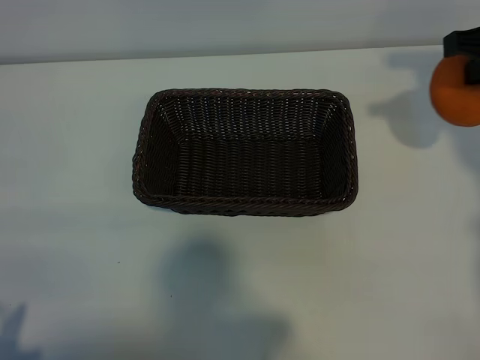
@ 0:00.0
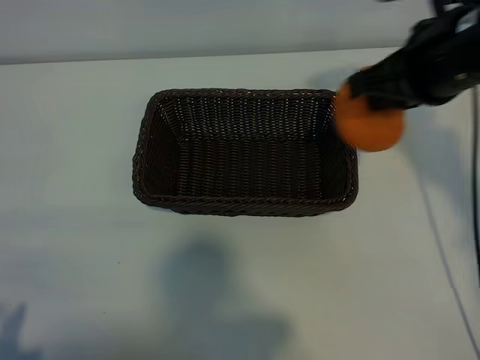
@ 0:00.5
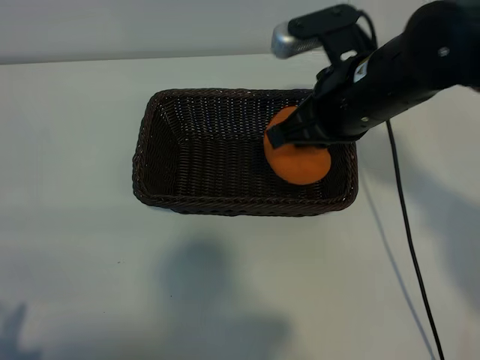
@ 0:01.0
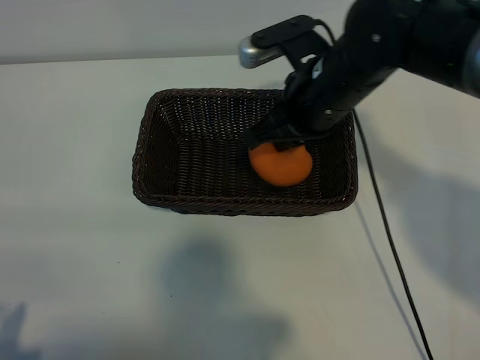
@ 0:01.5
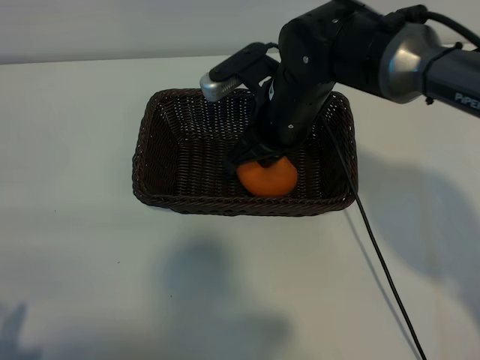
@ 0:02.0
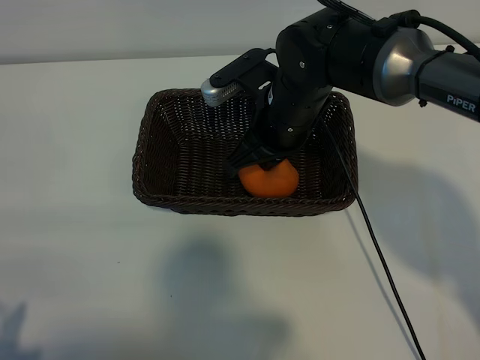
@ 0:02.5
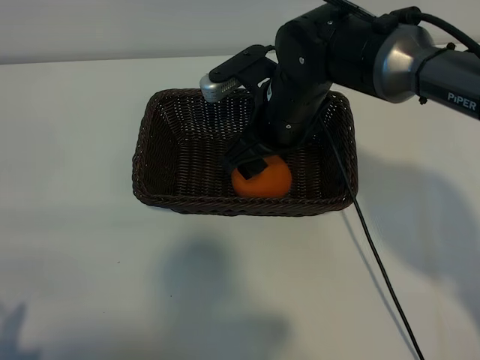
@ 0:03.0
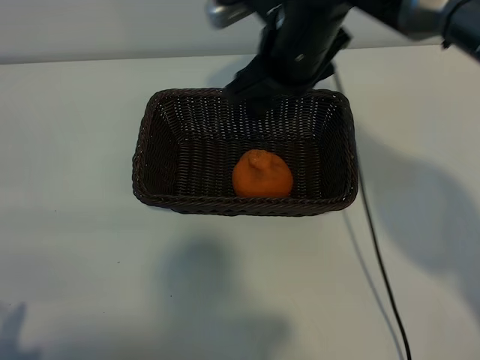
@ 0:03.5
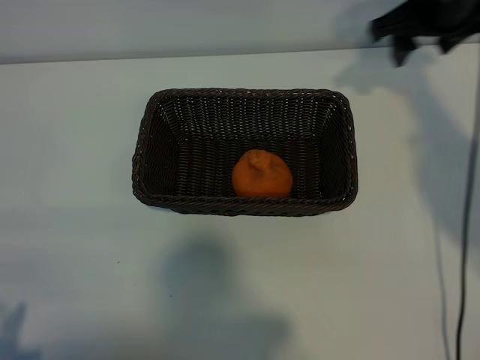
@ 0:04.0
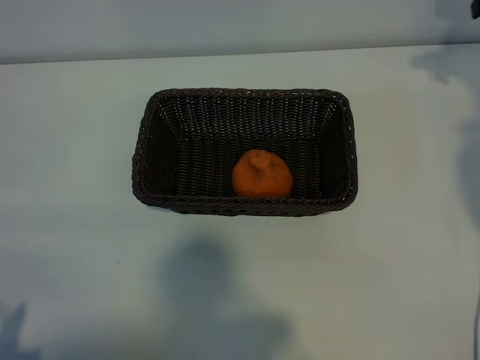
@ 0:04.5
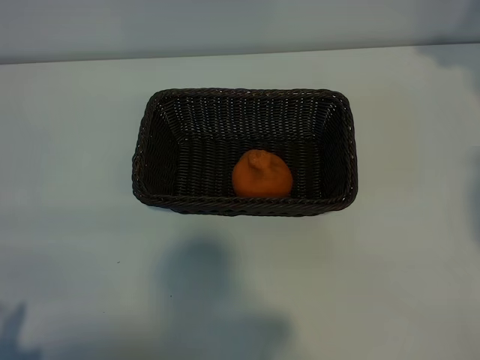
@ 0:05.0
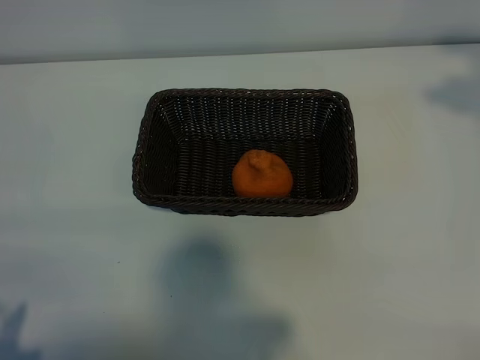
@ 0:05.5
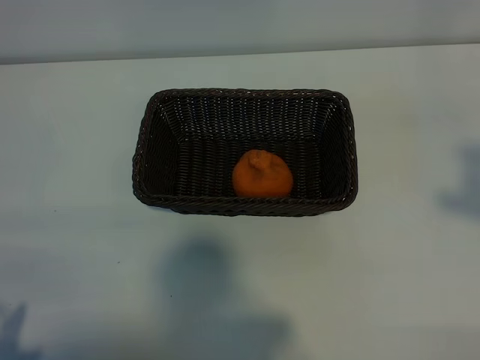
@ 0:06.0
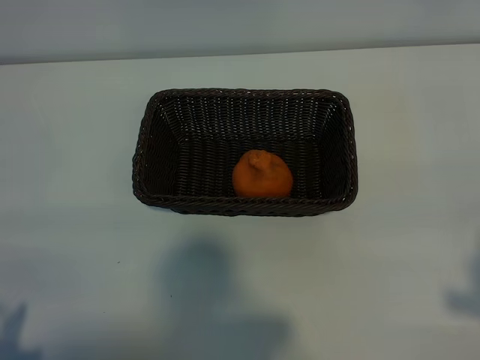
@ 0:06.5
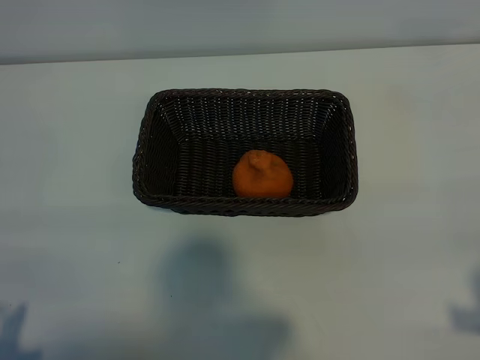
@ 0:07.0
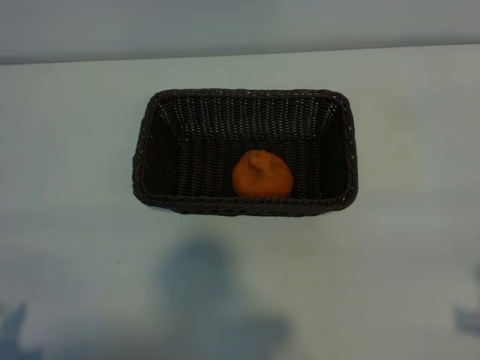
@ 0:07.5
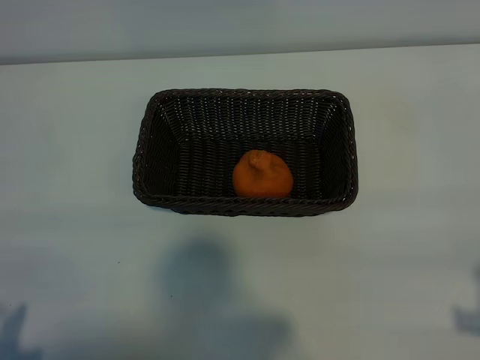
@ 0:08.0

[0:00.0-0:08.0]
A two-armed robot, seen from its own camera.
Task of the whole recording: pick up the orange and put it into the basket.
Step, 0:00.0 to 0:03.0: Place the orange in the basket with right gripper.
